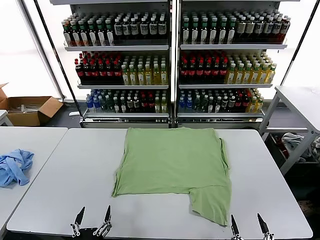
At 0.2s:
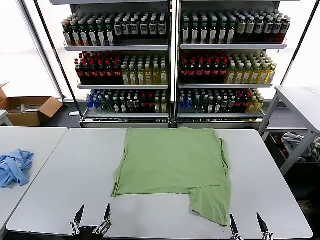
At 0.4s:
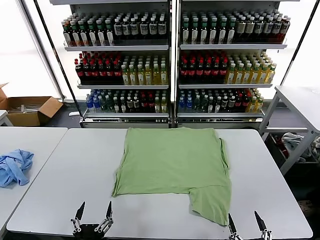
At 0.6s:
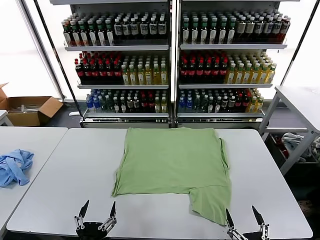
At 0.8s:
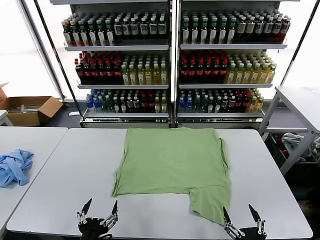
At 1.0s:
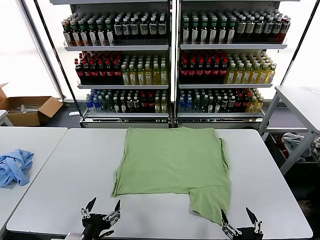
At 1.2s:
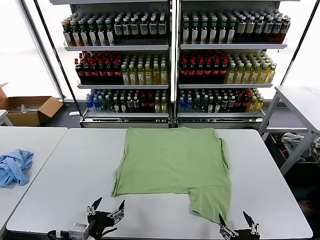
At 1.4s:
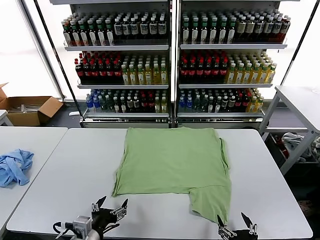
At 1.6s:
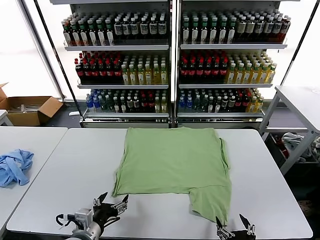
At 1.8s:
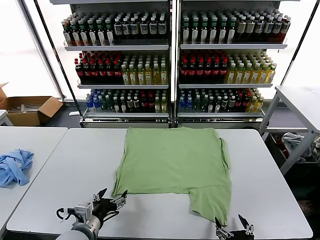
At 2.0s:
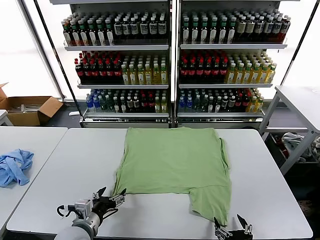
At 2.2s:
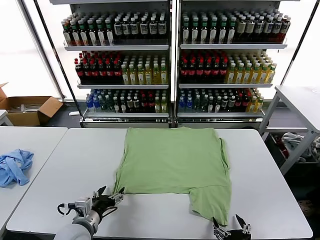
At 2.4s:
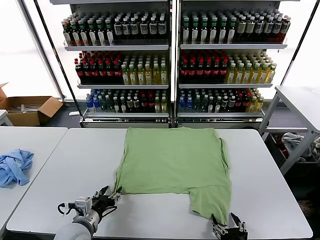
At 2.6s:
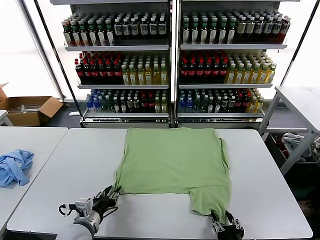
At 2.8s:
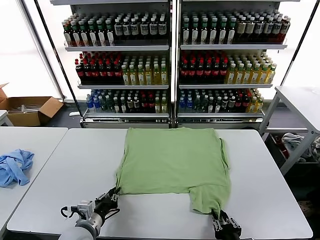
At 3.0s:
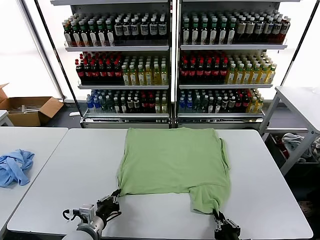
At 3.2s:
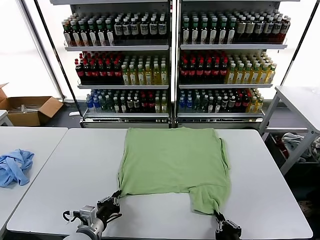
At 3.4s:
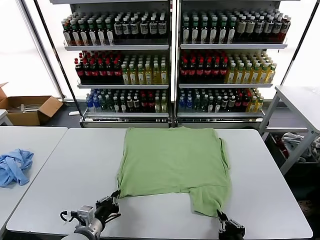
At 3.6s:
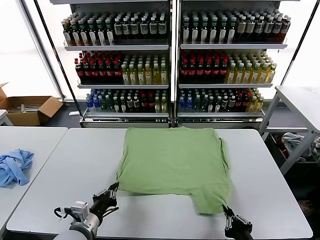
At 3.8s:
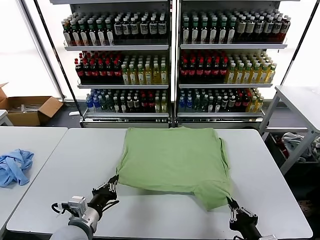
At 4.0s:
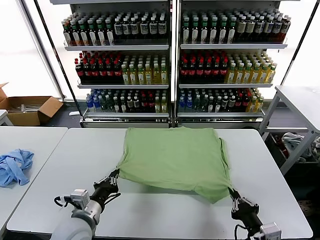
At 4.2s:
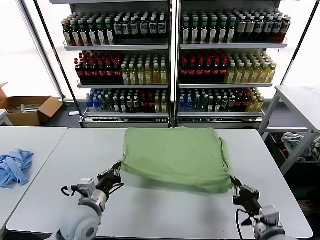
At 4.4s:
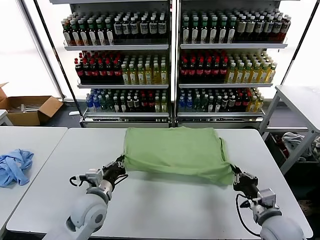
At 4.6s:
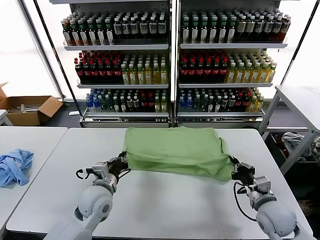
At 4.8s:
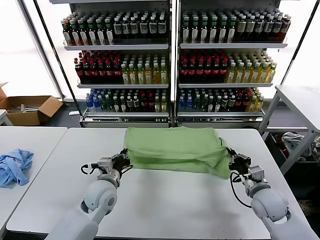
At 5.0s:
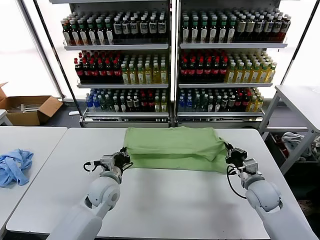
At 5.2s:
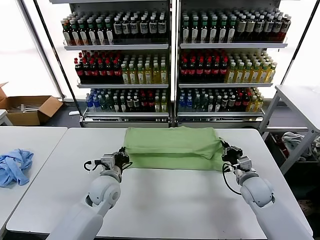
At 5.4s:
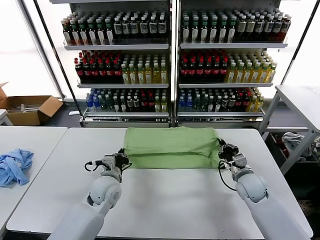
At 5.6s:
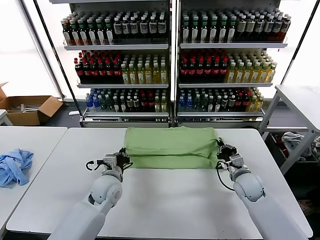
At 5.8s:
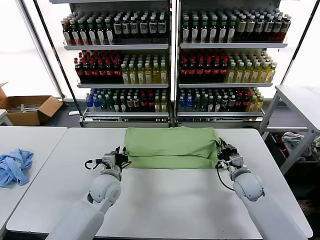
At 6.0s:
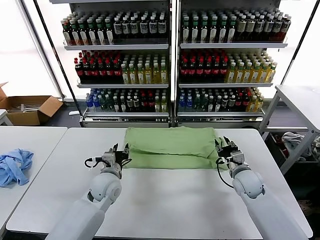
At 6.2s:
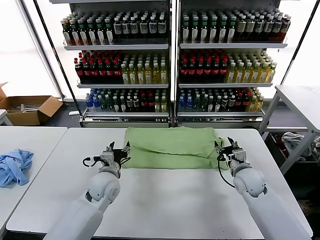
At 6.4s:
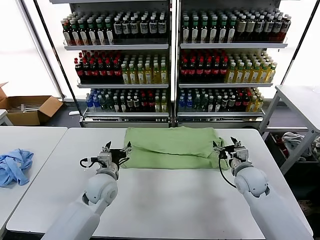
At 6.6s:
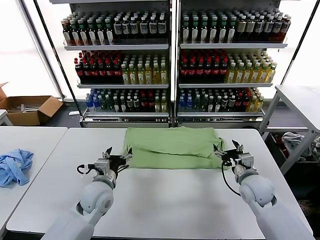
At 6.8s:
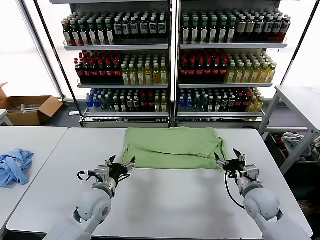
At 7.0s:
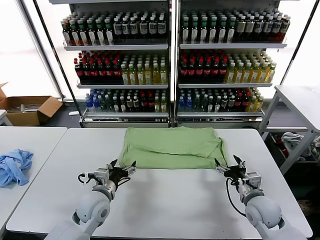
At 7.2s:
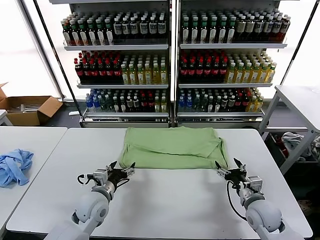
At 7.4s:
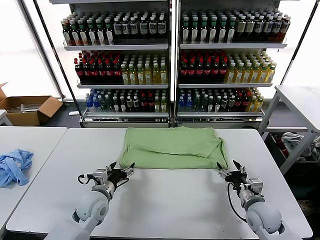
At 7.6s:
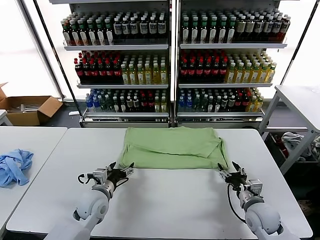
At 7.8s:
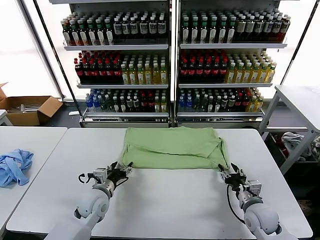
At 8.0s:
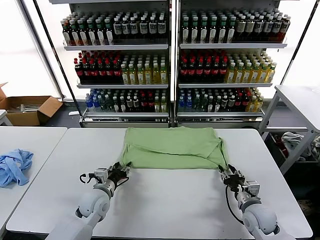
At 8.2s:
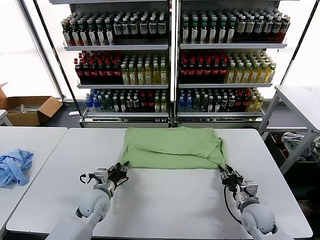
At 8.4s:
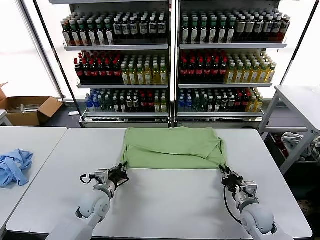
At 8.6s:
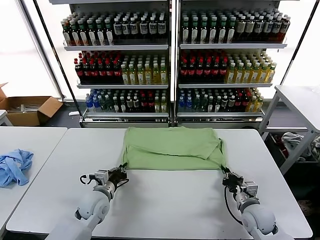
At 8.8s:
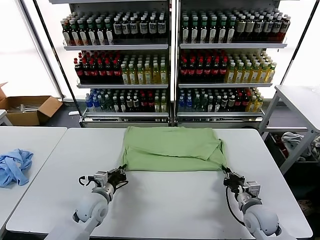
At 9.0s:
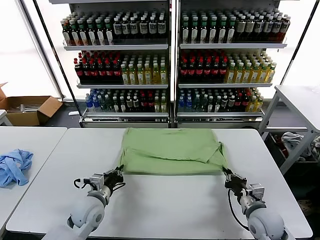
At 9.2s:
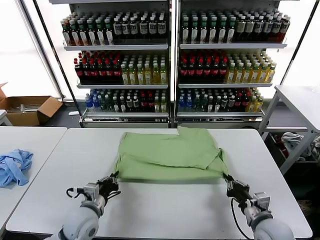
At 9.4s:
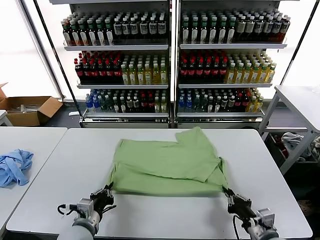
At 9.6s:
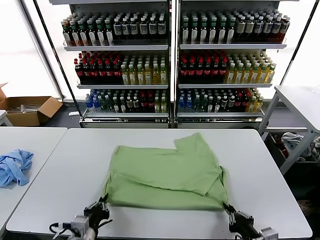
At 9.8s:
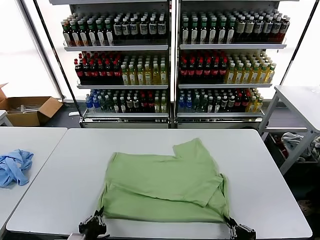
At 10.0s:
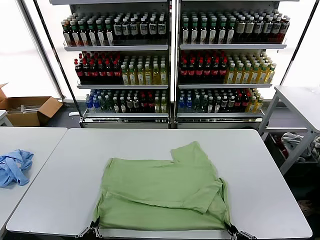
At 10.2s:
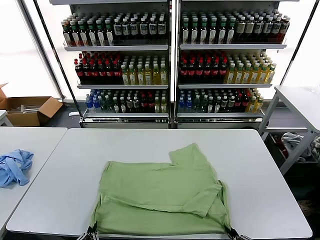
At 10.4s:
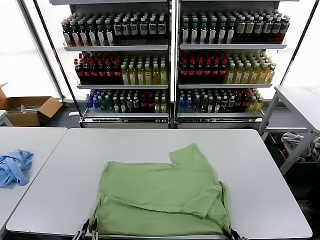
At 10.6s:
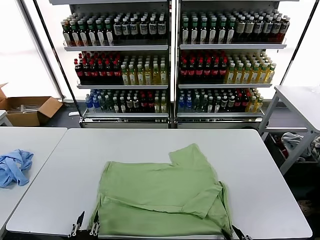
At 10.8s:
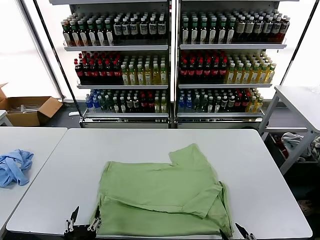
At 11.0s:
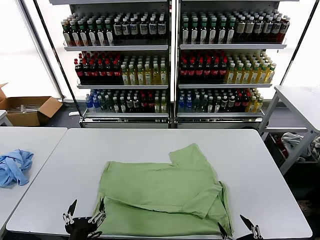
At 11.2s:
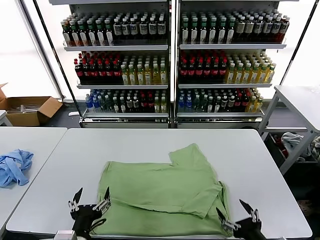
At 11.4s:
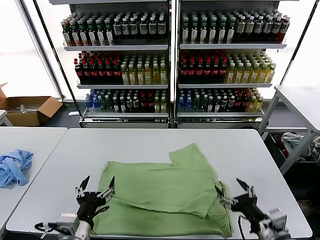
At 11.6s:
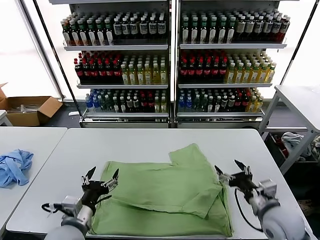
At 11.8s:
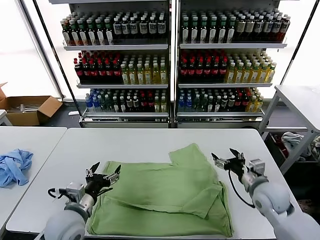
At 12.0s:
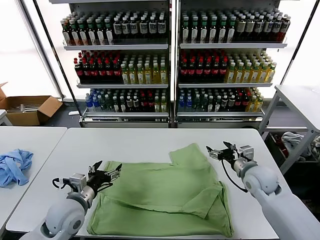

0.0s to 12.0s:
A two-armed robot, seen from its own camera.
Task of the whole recording: fold and organize the clothes.
Step, 0.0s to 3.0s: use both grippers simultaneously to clamp the lower edge of the clothing fabric.
Step, 3.2s to 6.0s: use both grippers to drag the lower edge of the fabric forward and fold it over the upper edge.
Step, 6.2s to 10.6s: Drag the clothes downward with both gripper.
1.6s to 3.0s: The right gripper closes up; the left gripper closes its fingers.
3.0s to 4.4s: The left gripper shifts approximately 10 cm forward and upward; the right gripper moves forward and to the right, some 20 cm.
4.4s to 6.0s: The right gripper heads forward, covering approximately 15 cm, and opens, while the left gripper is displaced forward by approximately 10 cm, and opens up.
6.0s to 7.6s: The left gripper changes place by approximately 5 cm, and opens, while the right gripper is displaced backward by roughly 10 cm.
7.6s to 9.0s: The left gripper closes its fingers; the right gripper changes place by about 5 cm, and closes.
9.0s to 10.4s: The two grippers go approximately 20 cm backward.
10.4s to 12.0s: The right gripper is displaced forward by roughly 35 cm, and opens its fingers; the left gripper is displaced forward by roughly 20 cm, and opens up.

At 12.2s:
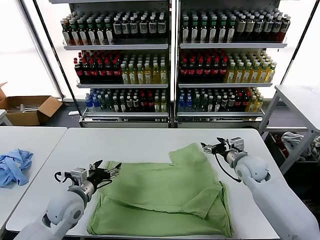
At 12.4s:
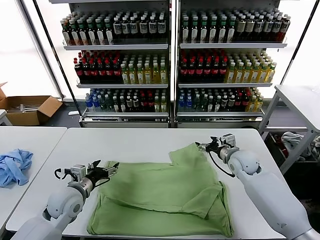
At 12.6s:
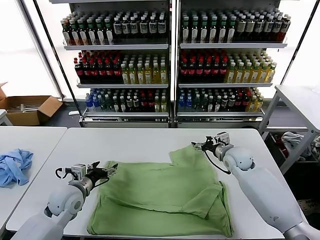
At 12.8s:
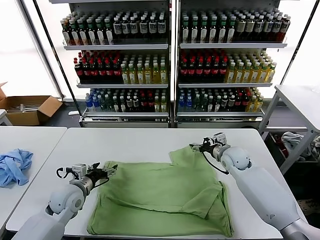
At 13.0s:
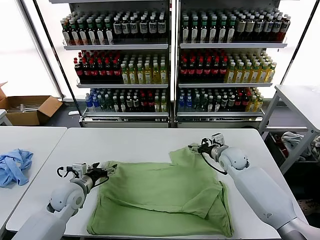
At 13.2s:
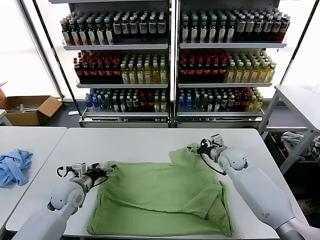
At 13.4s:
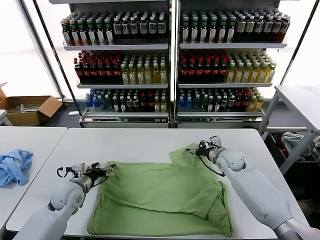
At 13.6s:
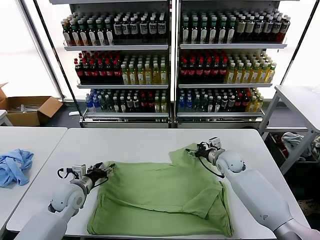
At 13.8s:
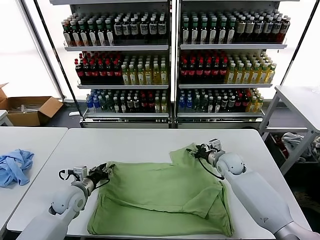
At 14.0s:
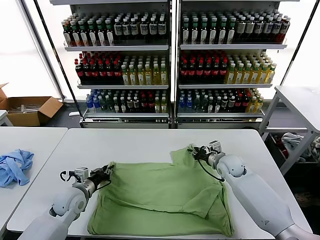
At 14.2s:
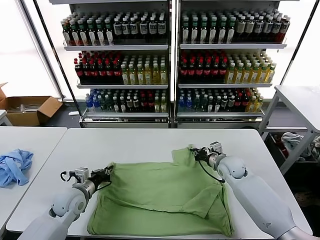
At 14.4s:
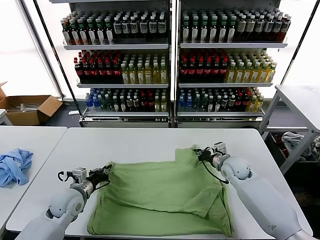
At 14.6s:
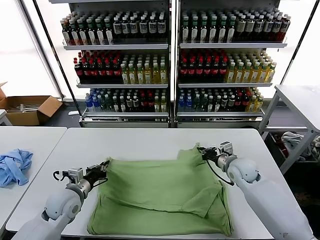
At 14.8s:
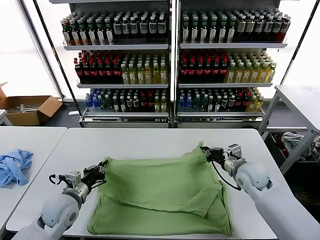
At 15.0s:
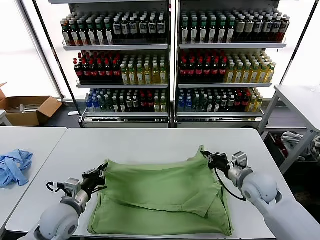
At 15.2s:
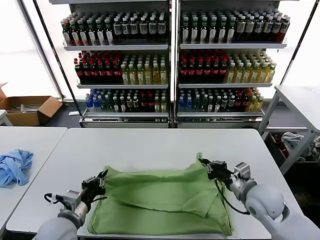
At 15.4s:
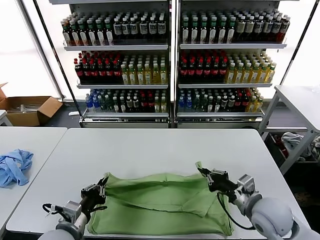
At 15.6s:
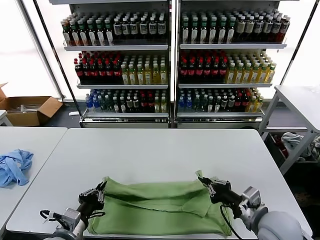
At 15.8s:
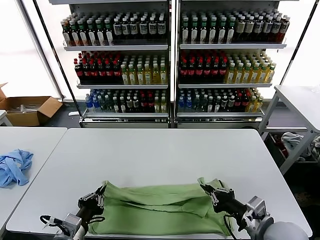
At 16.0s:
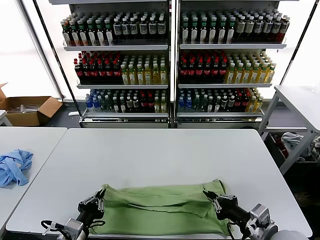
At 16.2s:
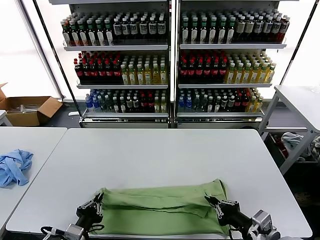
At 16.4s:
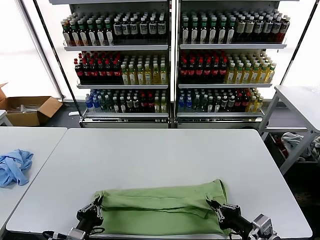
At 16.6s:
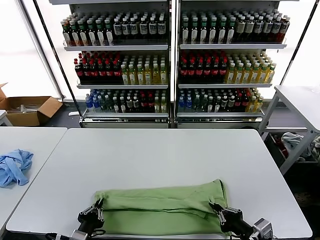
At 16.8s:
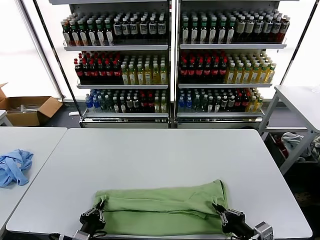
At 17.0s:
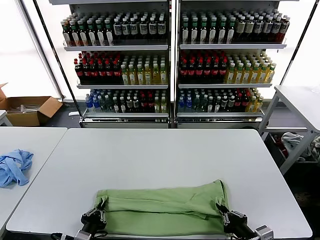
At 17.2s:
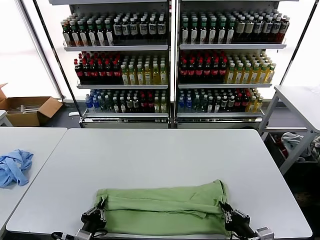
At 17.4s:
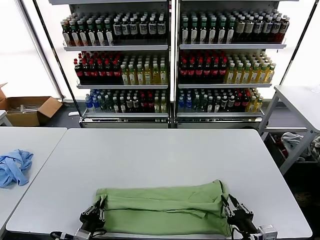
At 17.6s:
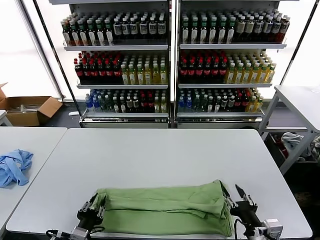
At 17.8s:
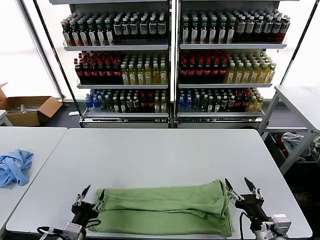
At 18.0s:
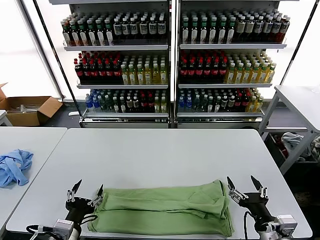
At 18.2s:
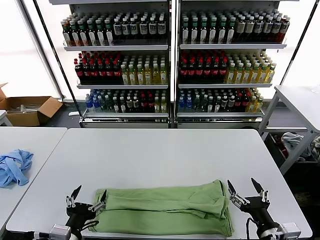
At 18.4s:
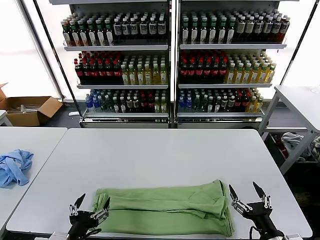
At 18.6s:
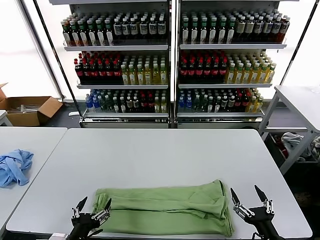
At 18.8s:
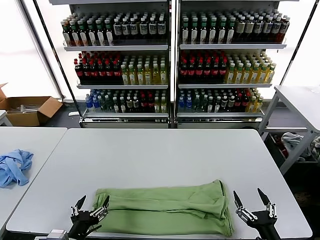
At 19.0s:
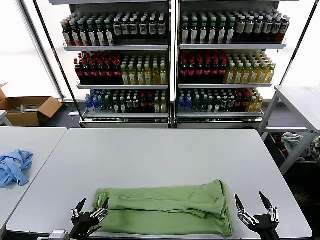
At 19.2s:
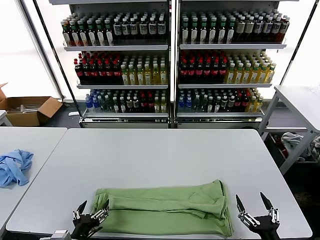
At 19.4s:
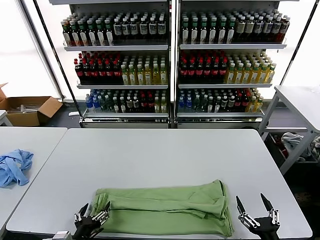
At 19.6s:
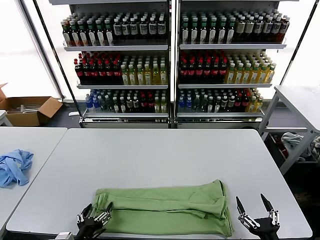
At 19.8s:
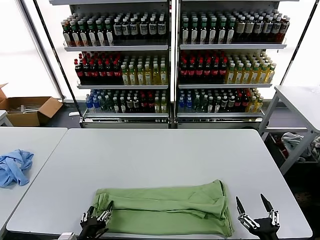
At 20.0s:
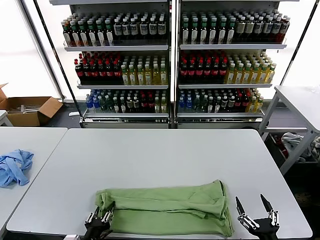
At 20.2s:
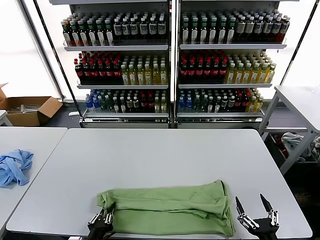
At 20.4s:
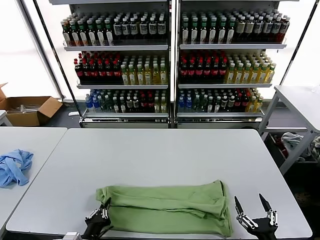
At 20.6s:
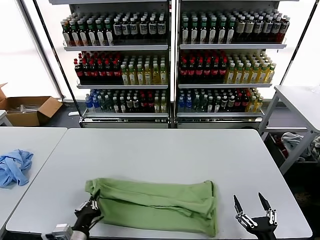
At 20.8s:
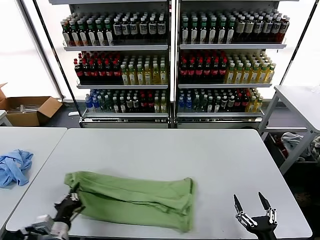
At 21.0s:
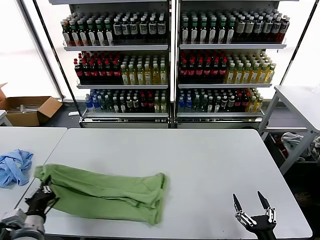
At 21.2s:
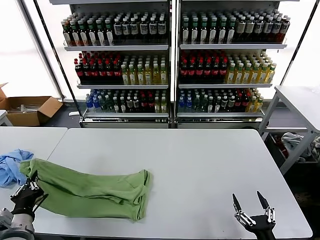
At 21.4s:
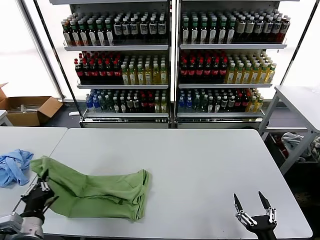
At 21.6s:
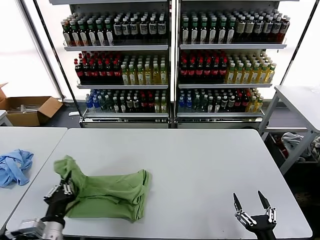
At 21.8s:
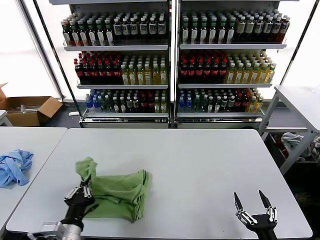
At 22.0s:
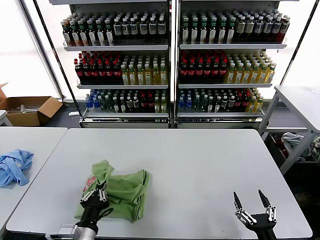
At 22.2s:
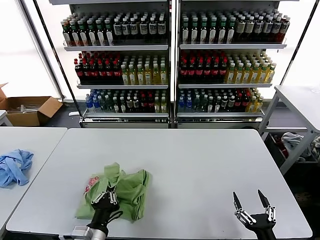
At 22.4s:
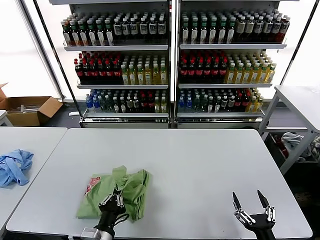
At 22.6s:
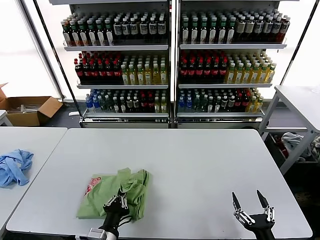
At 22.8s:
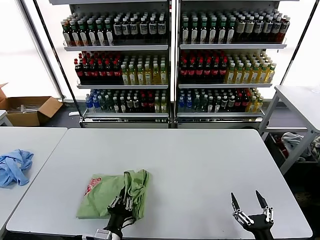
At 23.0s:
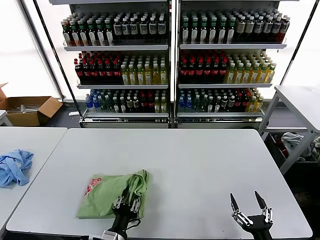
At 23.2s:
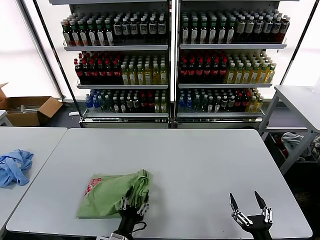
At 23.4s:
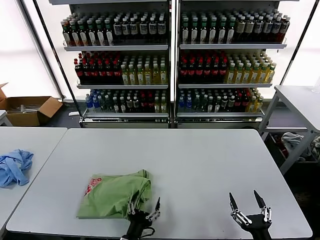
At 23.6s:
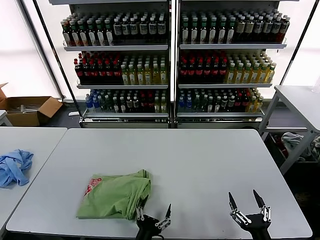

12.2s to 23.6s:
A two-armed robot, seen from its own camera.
Task of the whole recording: fold and organize the clothes.
Step, 12.2s to 14.2s: use both grippers simultaneously to clamp the upper edge of the clothing fabric.
Step, 14.4s to 17.6s: use both grippers to drag the upper edge of the fabric backward and fold it over the lower edge.
Step, 17.8s to 20.2s: use the left gripper to clamp the left edge of the fabric.
Step, 20.6s to 23.4s: use the left gripper to drag the left edge of the fabric to the left and folds it over the right edge.
12.2s to 13.6s: The right gripper ends up about 5 cm from where it was. Meanwhile the left gripper shifts by approximately 5 cm.
13.6s to 15.0s: The left gripper moves backward, roughly 10 cm, and closes up, while the right gripper moves backward, approximately 15 cm, and closes its fingers.
15.0s to 16.4s: Both grippers travel together backward, approximately 15 cm.
16.4s to 17.8s: The right gripper opens up. The left gripper opens up.
17.8s to 19.4s: The left gripper opens; the right gripper travels backward and downward by roughly 10 cm.
19.4s to 20.8s: The left gripper moves roughly 5 cm, and closes its fingers.
20.8s to 22.2s: The left gripper moves to the right, some 10 cm.
22.2s to 23.6s: The left gripper moves to the right and downward, about 10 cm, and opens its fingers.
